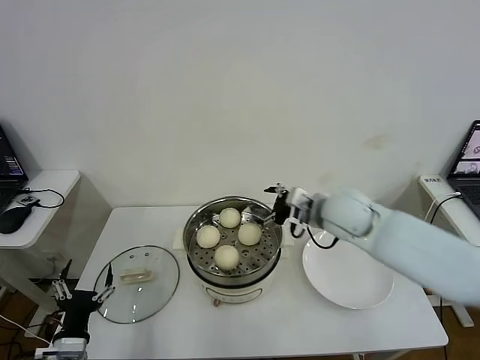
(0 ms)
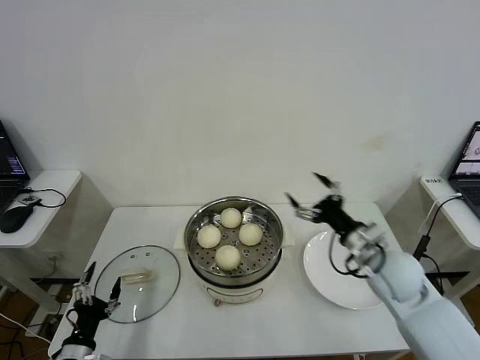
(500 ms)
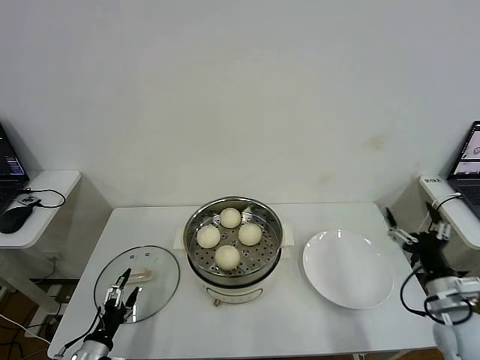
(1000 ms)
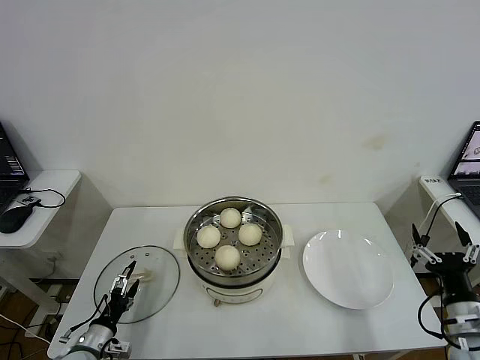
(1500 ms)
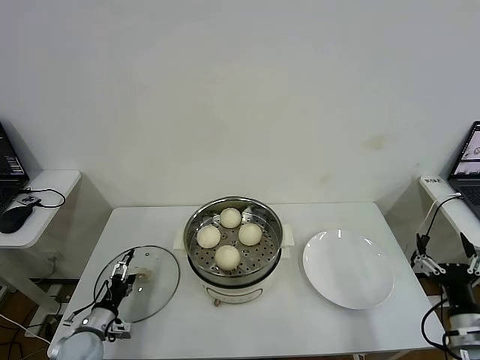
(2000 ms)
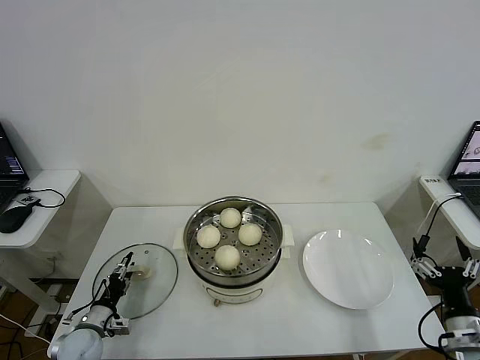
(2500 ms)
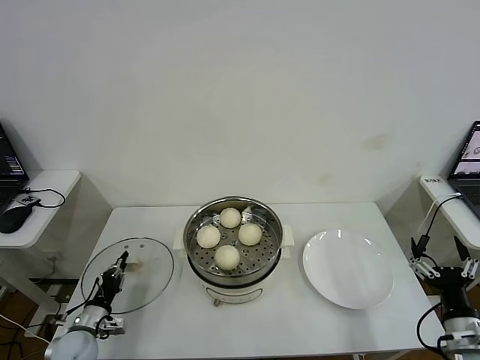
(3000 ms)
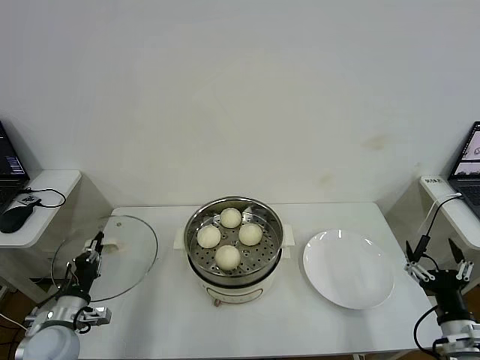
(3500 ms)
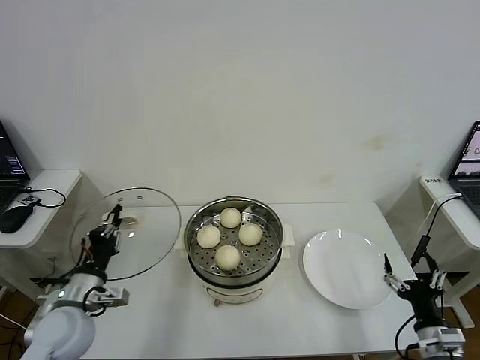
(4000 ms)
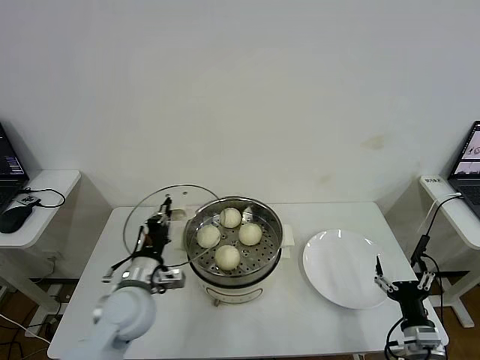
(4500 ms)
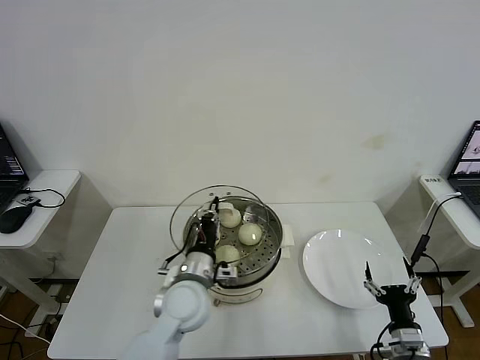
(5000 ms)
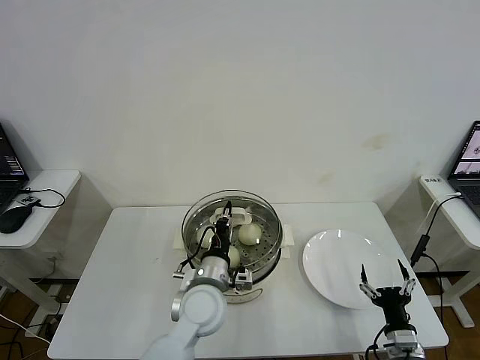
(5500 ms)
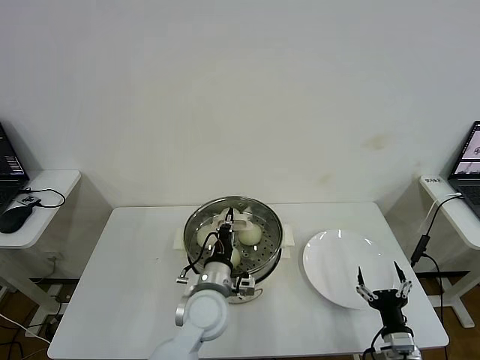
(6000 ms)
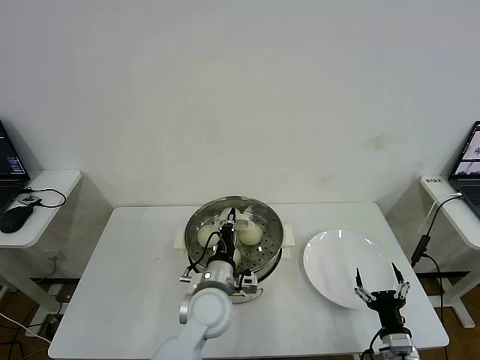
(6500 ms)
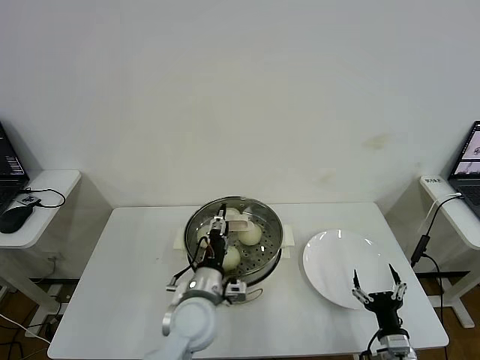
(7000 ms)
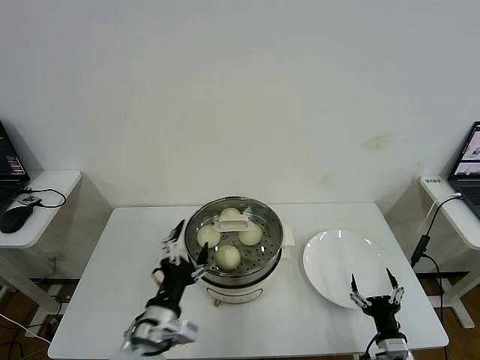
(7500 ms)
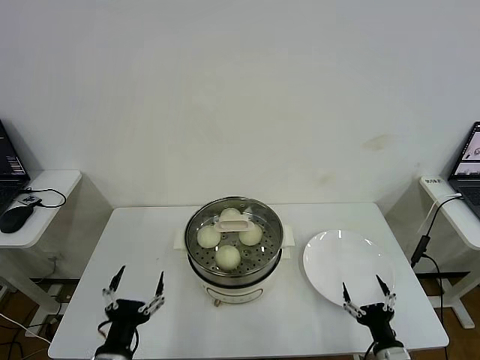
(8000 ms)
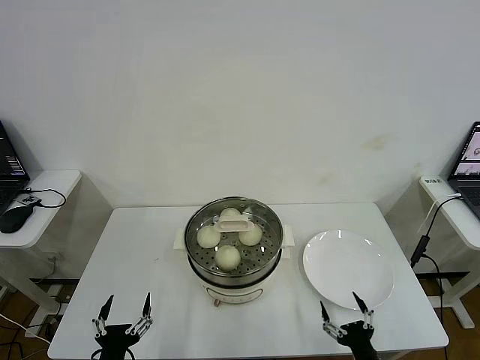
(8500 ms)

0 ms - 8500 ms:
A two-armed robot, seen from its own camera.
Step, 0 ms - 3000 ms: Grasp the pot lid with left gripper.
Step, 3500 ms - 6500 ms: Place the pot lid on the steamer with left gripper.
0 ms - 2000 ms: The right gripper travels backward, to the right and downward by some 35 cm, while the left gripper moves forward and downward, some 15 cm.
2000 ms - 4000 ms: The left gripper shifts about 20 cm upward, and closes its fingers, while the right gripper shifts by about 5 cm.
4000 ms - 6500 ms: The left gripper is displaced to the right by some 25 cm. Meanwhile the right gripper heads downward, covering approximately 5 cm.
6500 ms - 8500 ms: The left gripper shifts some 30 cm backward and to the left, and opens up. Meanwhile the right gripper is displaced backward by roughly 5 cm.

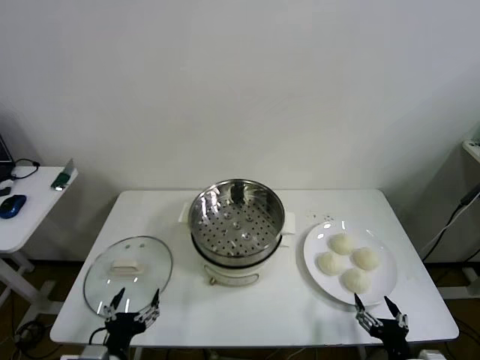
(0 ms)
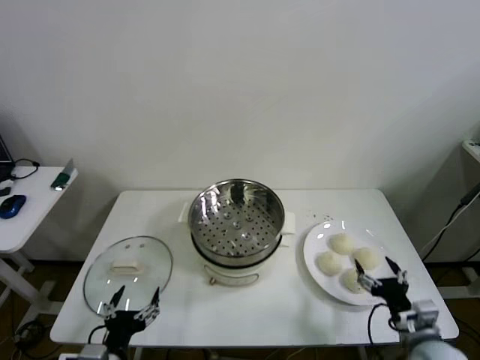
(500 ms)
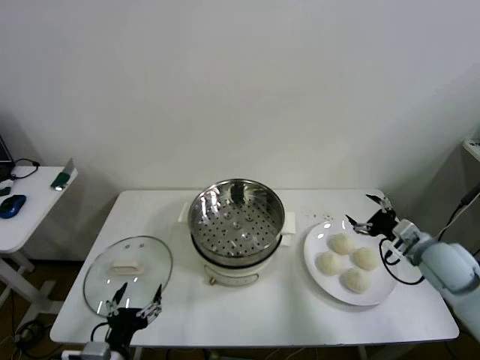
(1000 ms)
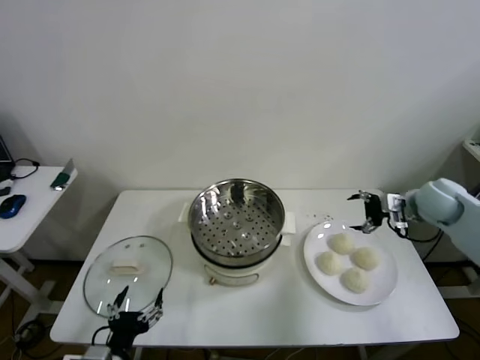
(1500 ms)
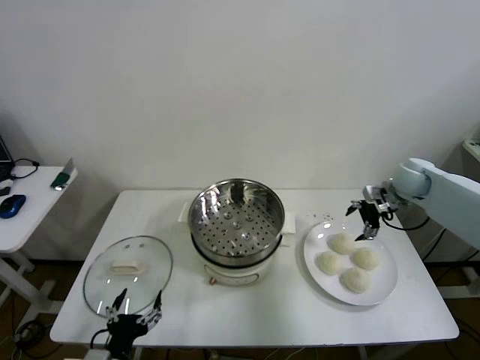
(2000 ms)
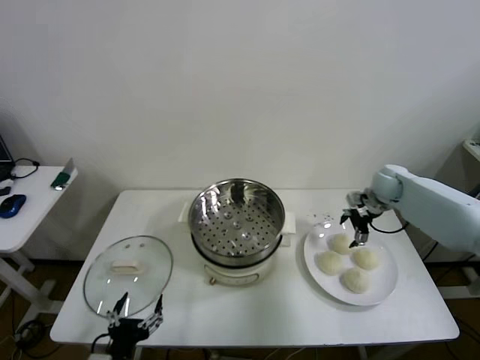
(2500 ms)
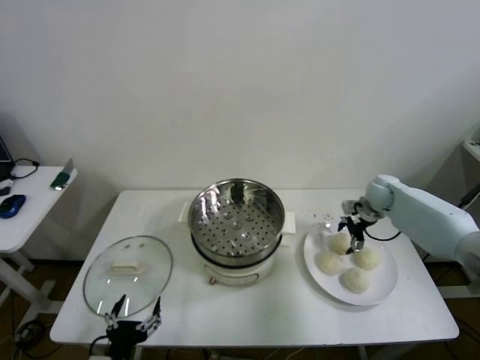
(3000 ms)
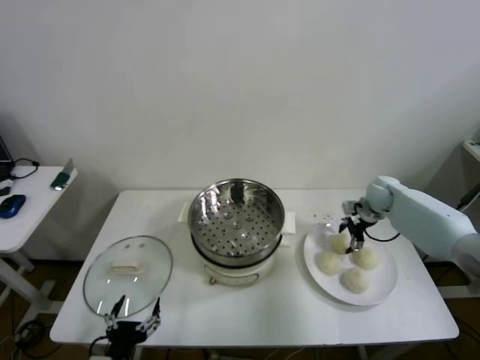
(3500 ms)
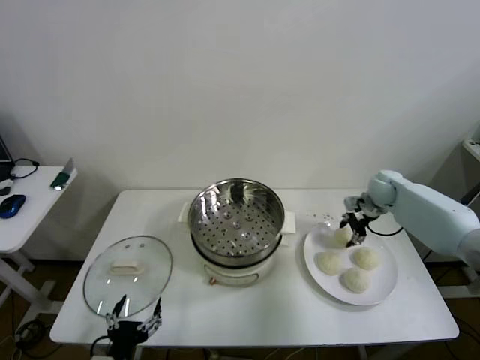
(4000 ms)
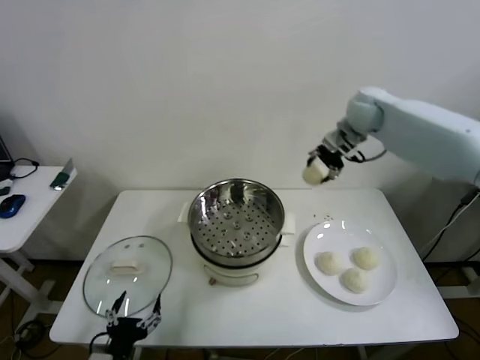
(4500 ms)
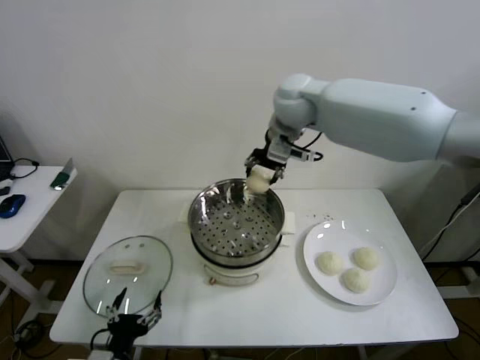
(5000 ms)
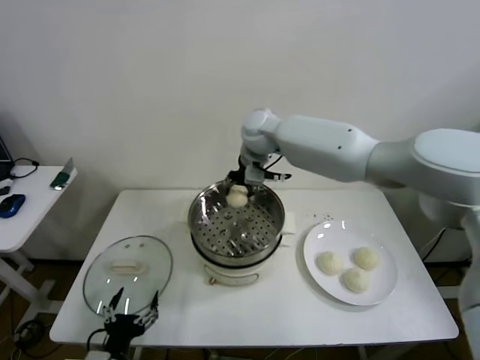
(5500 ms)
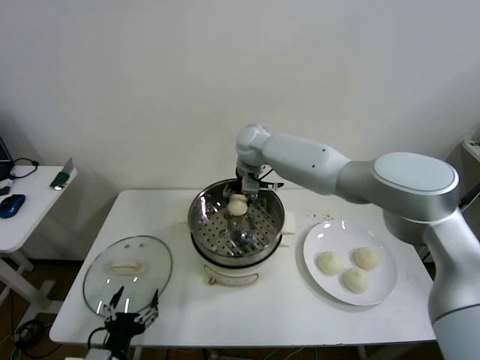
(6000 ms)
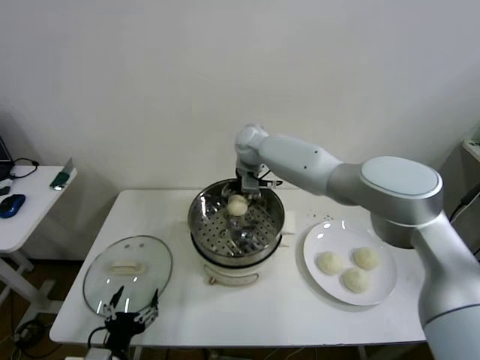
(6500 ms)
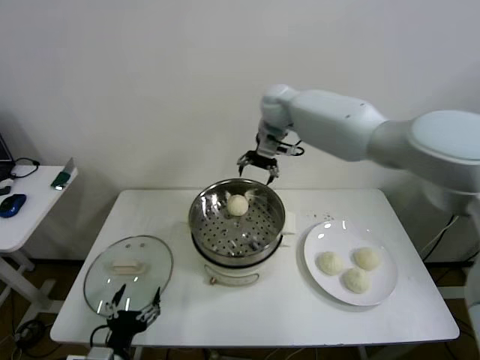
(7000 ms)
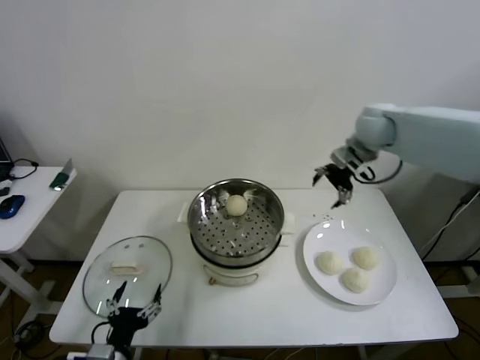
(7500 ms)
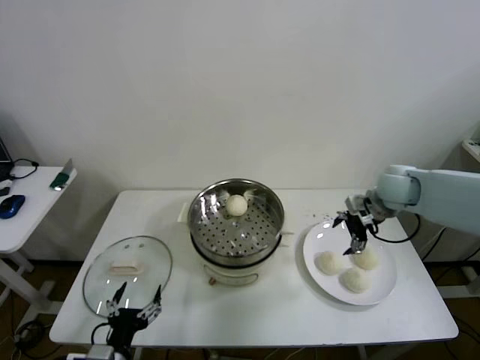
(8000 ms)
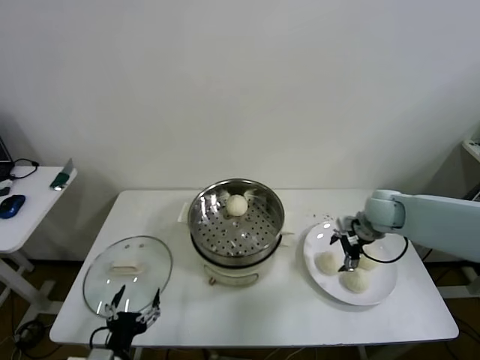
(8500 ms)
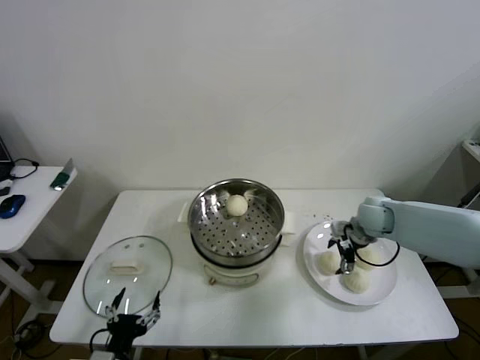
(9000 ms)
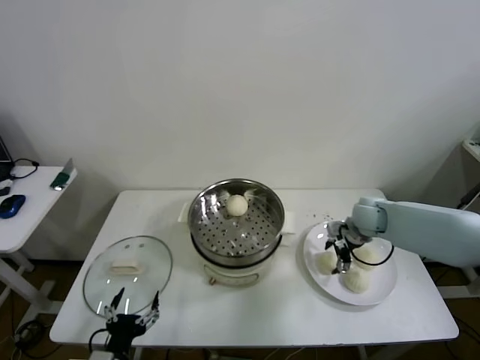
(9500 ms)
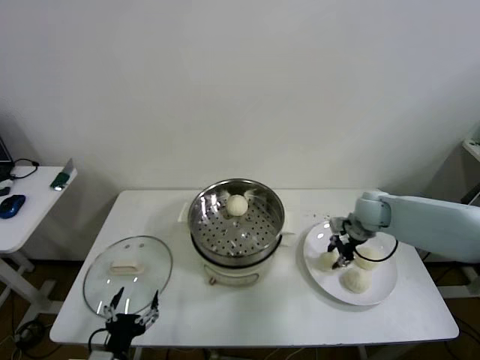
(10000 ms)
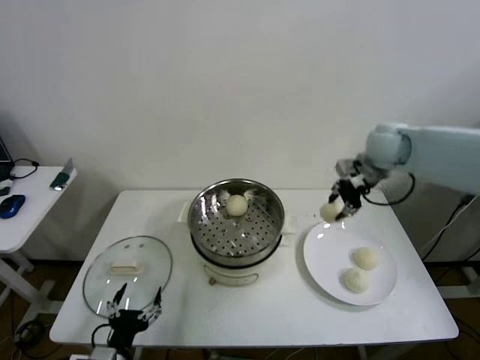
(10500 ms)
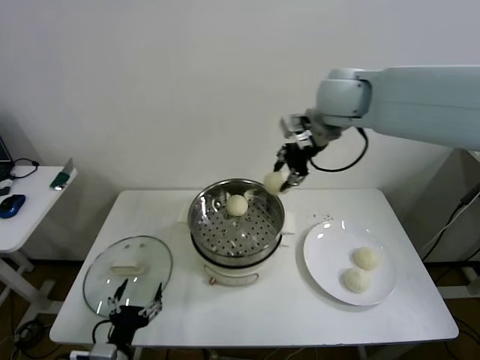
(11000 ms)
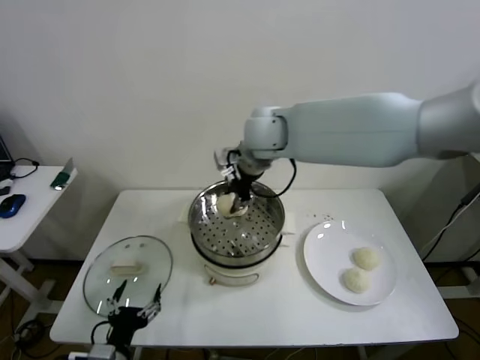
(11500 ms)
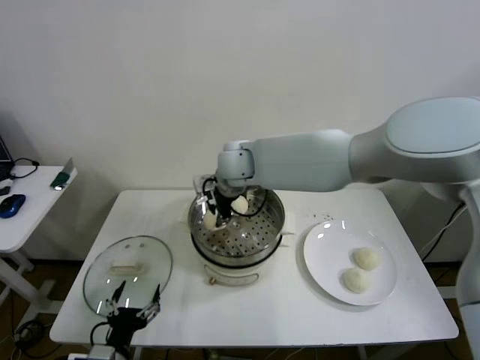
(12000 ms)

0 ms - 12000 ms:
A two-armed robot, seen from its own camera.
Step, 0 ms - 3500 ms: Grasp the baozi in the plate with right gripper.
Step, 4000 ms - 6500 ms: Place the baozi on the steamer with right gripper.
Step, 7000 ms - 9500 ms: Grasp the baozi in the plate with right gripper.
2000 ms - 4000 ms: The right gripper closes up.
4000 ms - 6000 ms: The right gripper goes roughly 35 cm to the left.
6000 ms - 8000 ms: The right gripper goes roughly 30 cm to the right, and opens up.
8000 ms - 10000 ms: The right gripper shifts about 5 cm downward, and closes its fingers.
10000 ms - 12000 ms: The right gripper heads to the left, covering about 35 cm.

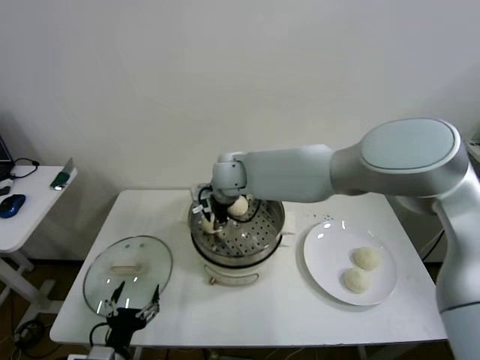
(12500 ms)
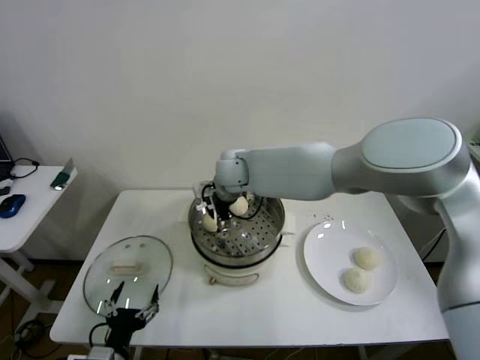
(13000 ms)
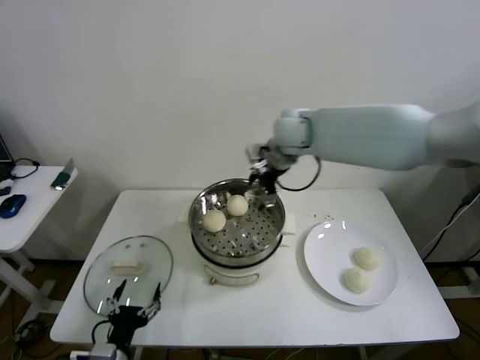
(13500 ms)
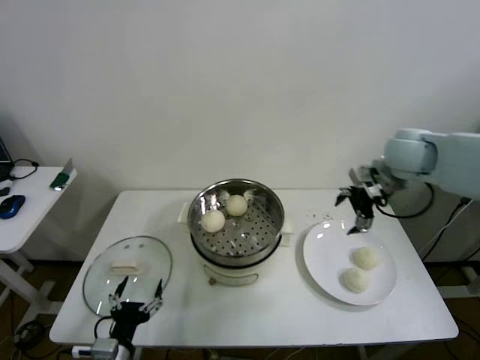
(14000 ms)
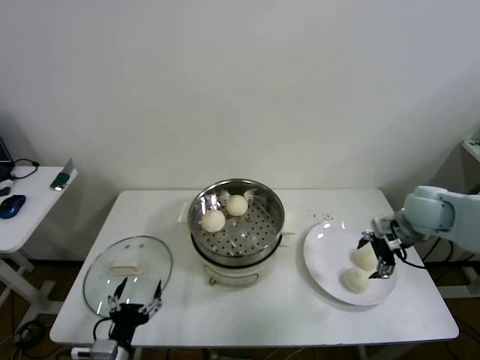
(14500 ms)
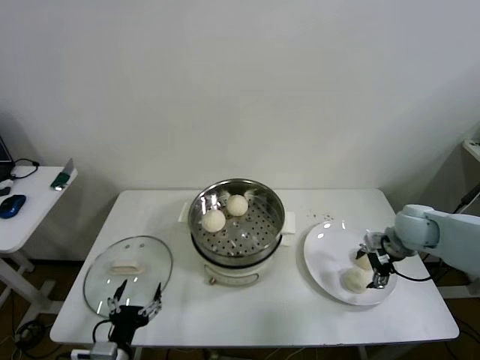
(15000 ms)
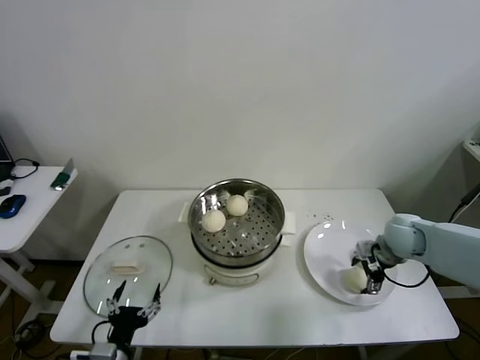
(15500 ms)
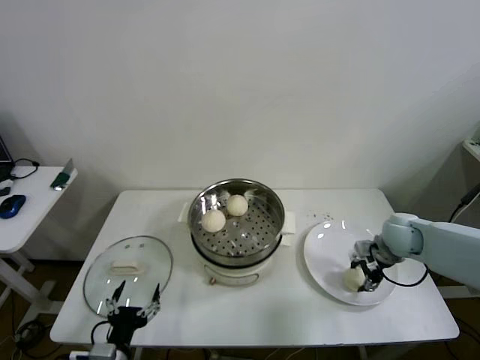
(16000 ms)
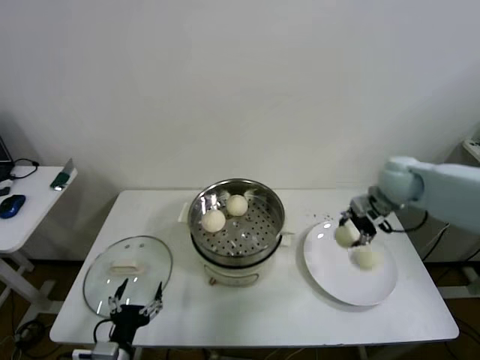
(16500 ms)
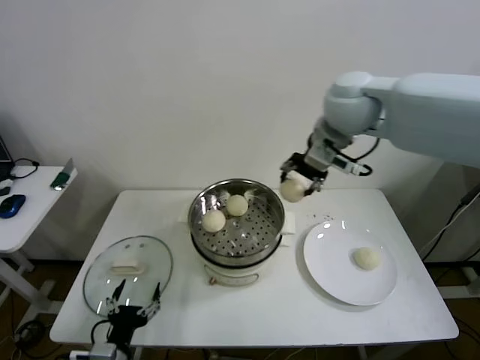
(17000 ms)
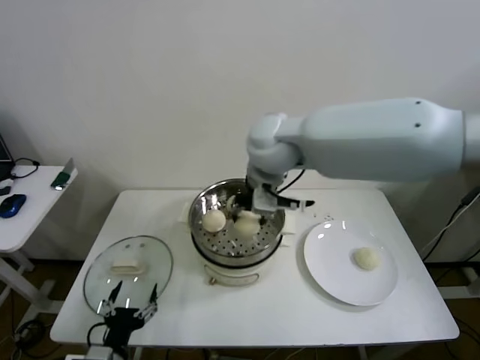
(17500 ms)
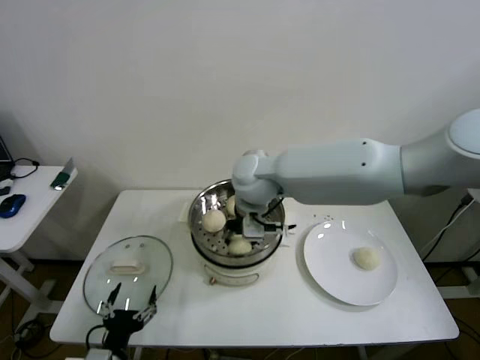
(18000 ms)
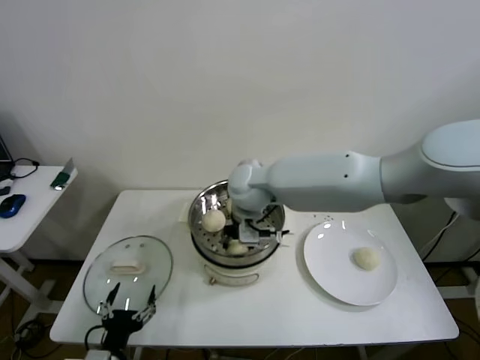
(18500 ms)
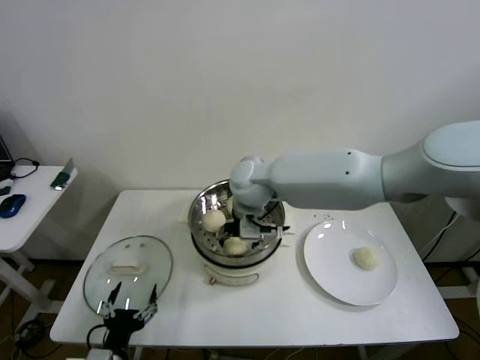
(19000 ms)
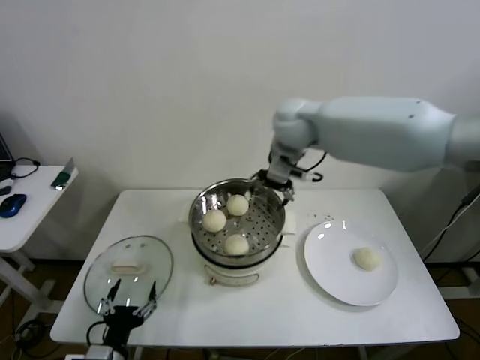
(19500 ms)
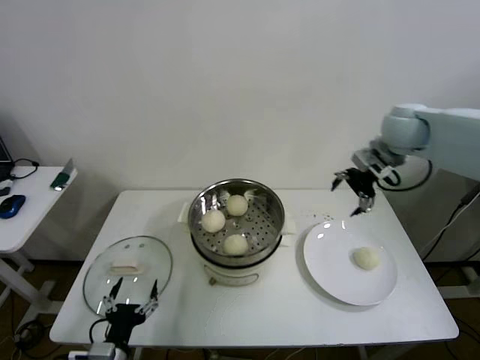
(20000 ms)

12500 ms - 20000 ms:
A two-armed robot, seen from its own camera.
Step, 13500 ms - 15500 ms: Grasp the baozi in the plate with right gripper.
Step, 16000 ms - 19000 ms: Place the baozi on the steamer with right gripper.
12500 ms - 14500 ms: The right gripper shifts roughly 40 cm to the right, and opens its fingers.
14500 ms - 16500 ms: The right gripper shifts approximately 10 cm upward, forward and to the left, and closes up.
16500 ms - 18000 ms: The right gripper goes roughly 30 cm to the left.
18000 ms - 20000 ms: The right gripper shifts approximately 30 cm to the right, and opens up.
